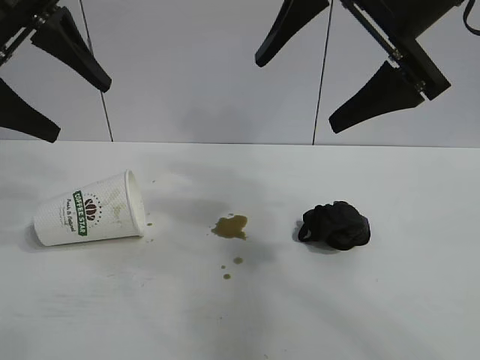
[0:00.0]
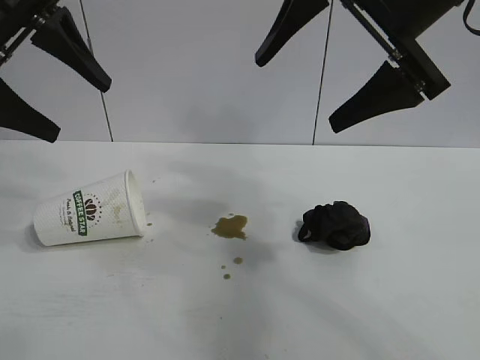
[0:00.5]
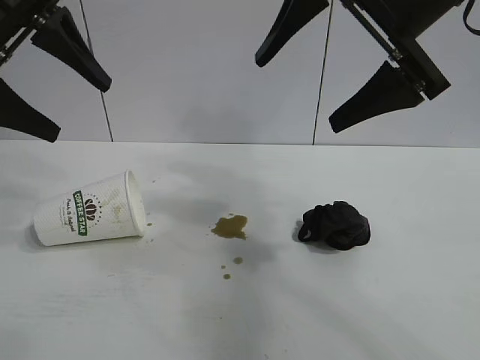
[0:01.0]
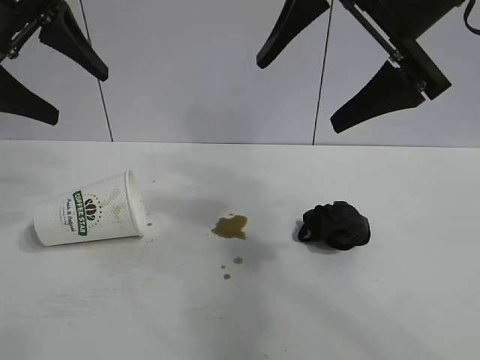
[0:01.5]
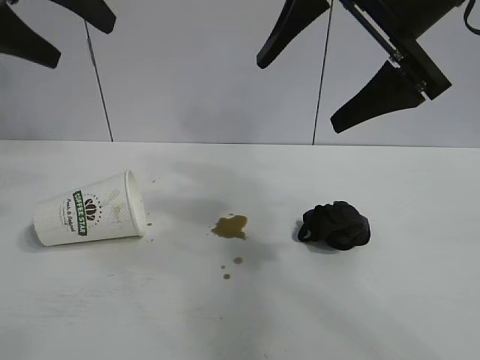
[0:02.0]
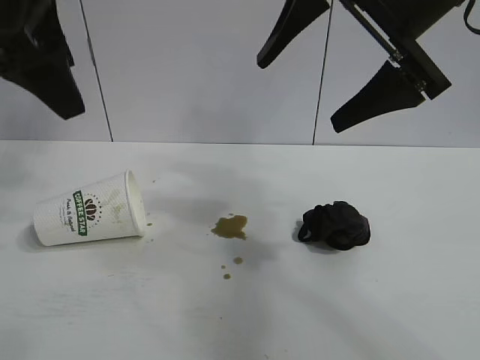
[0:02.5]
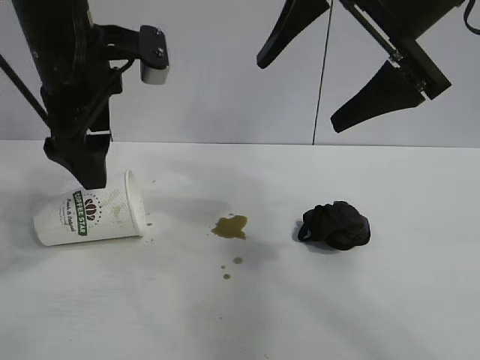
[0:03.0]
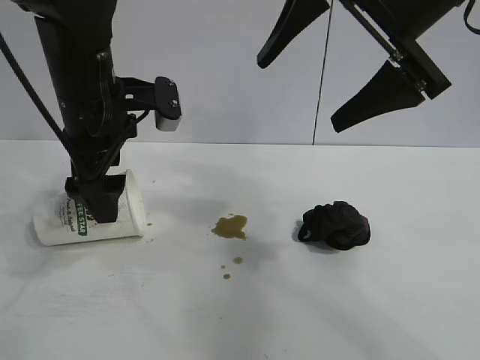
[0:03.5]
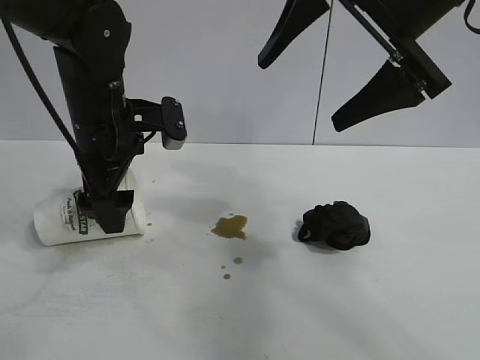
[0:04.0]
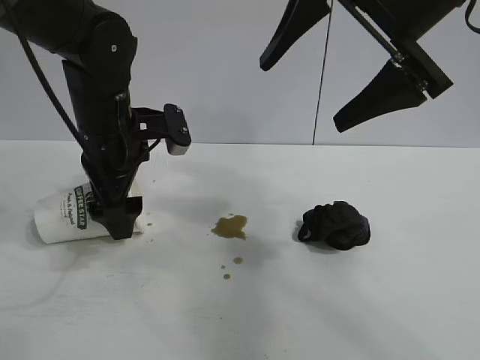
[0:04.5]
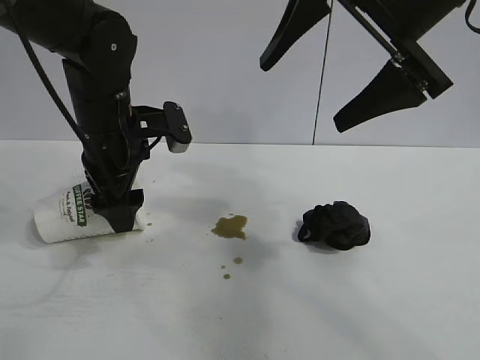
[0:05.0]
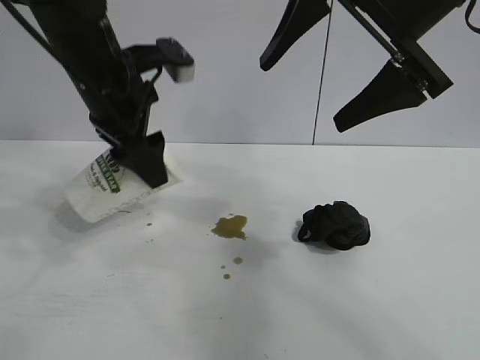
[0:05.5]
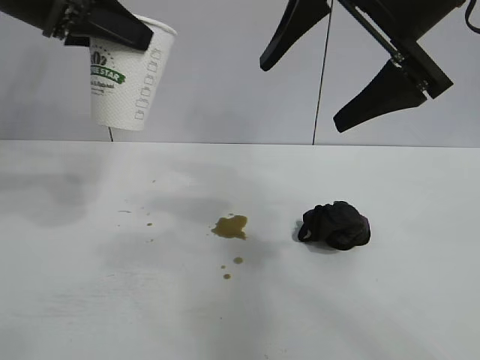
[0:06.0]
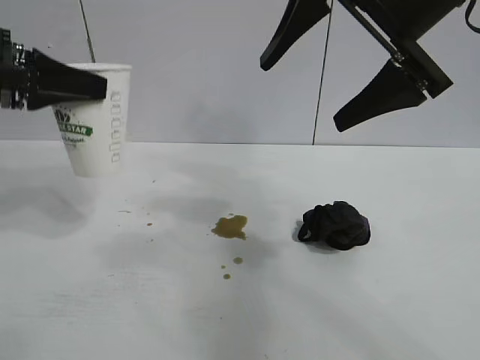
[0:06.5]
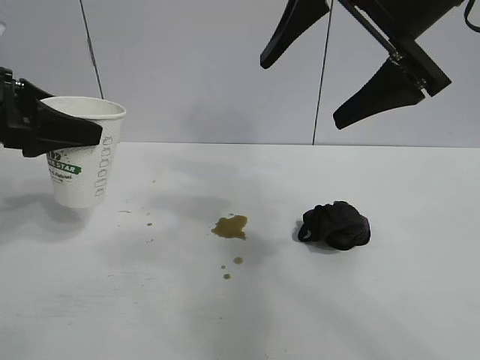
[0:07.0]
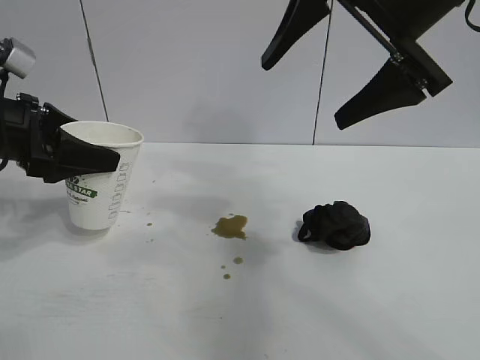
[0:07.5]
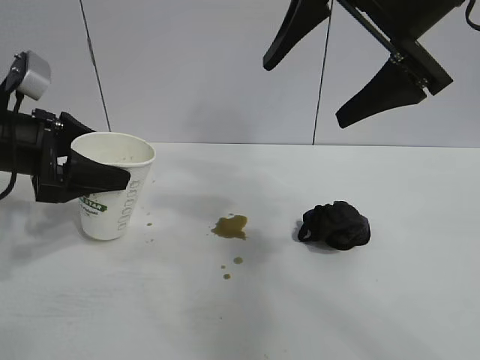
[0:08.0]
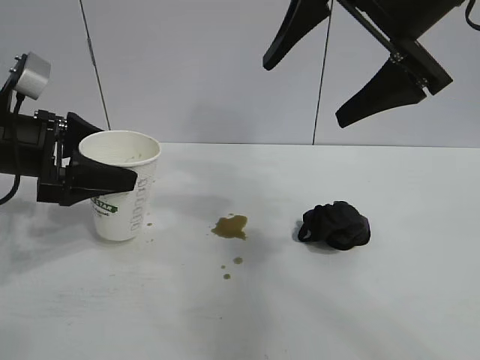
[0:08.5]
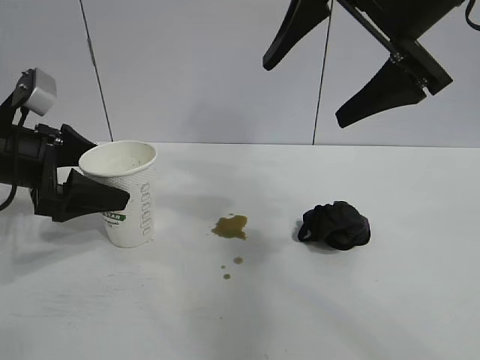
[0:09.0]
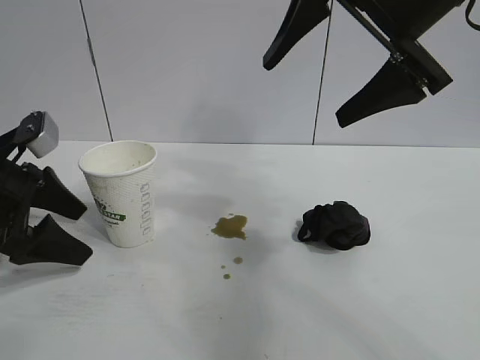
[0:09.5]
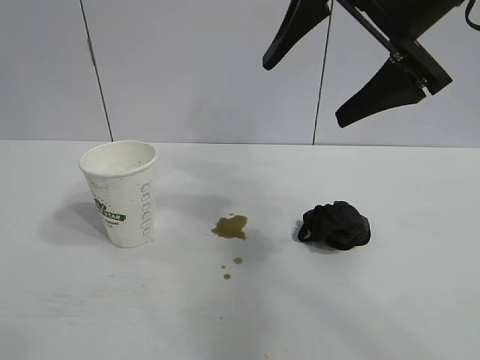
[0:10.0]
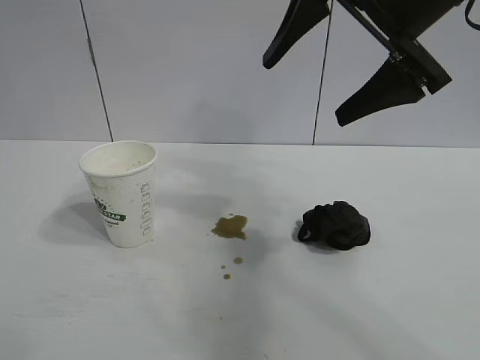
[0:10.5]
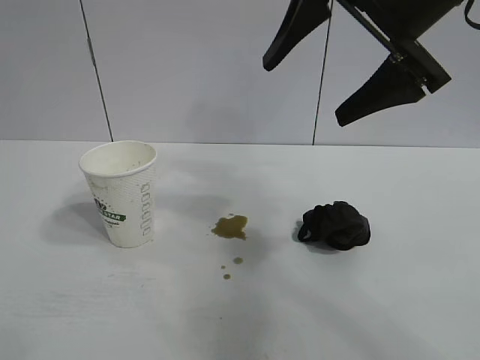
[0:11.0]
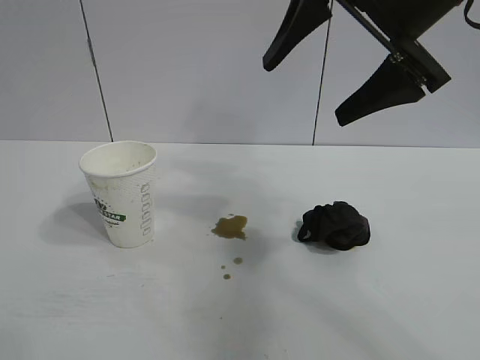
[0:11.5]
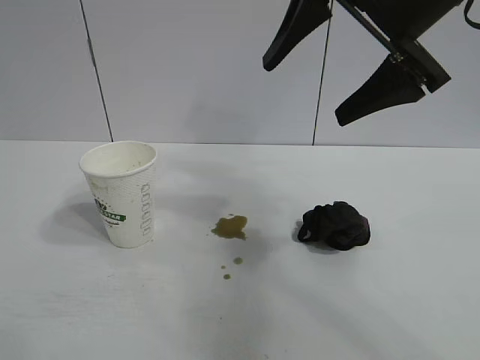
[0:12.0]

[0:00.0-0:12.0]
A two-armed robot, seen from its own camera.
Task of the whole recording: the left gripper pick up the fallen cup and place it upright, the right gripper grasp the black rag and wipe the stain on the table, the right gripper put the black rag back in its original position.
Step, 0:01.5 to 0:05.0: Grasp the paper cup with left gripper.
Step, 0:05.5 to 0:08.5: Stand the paper cup upright with left gripper.

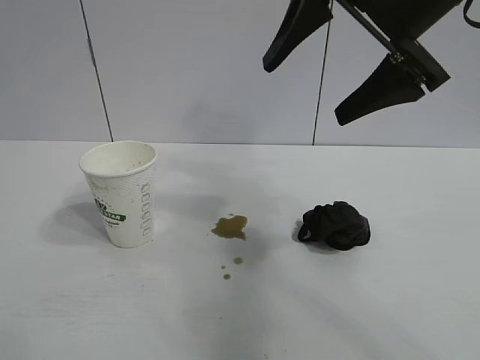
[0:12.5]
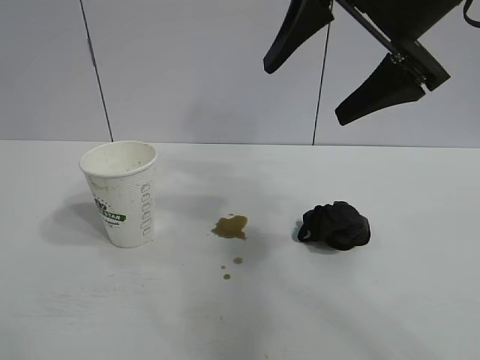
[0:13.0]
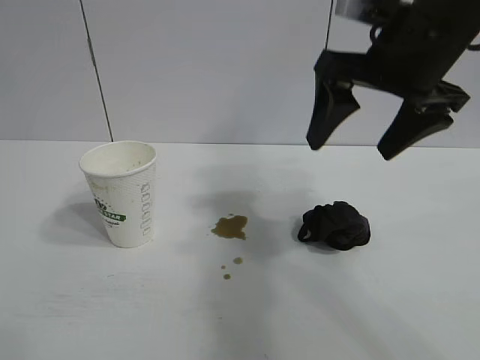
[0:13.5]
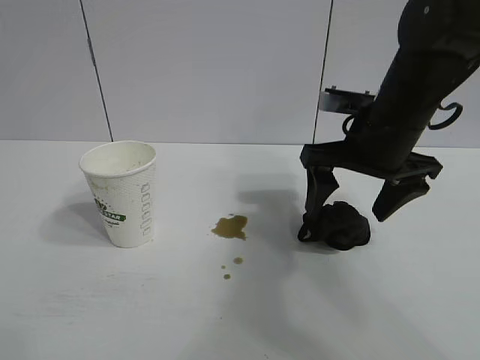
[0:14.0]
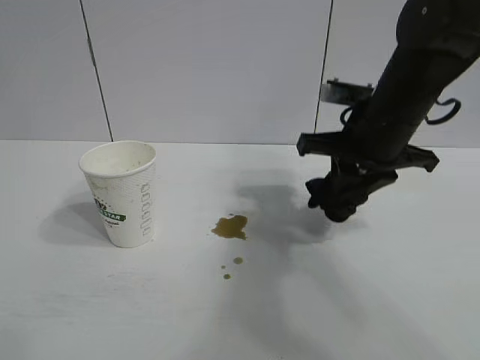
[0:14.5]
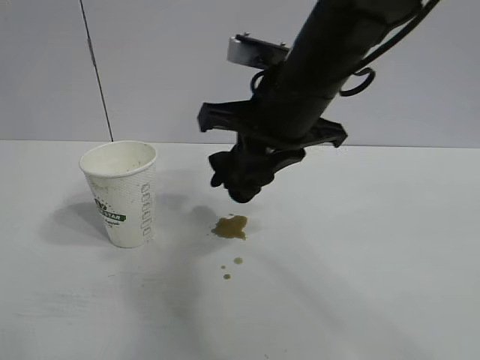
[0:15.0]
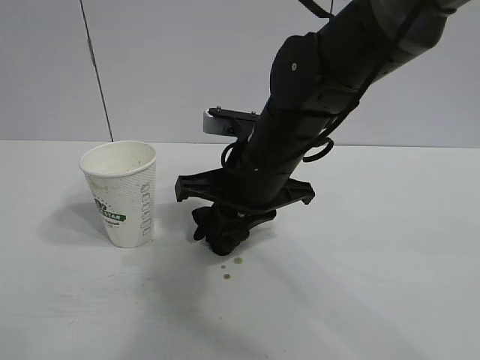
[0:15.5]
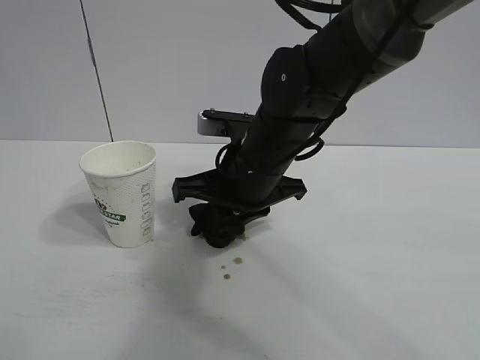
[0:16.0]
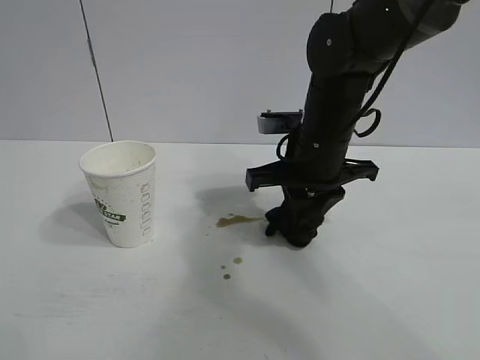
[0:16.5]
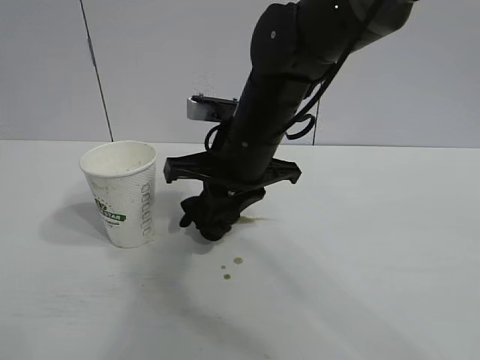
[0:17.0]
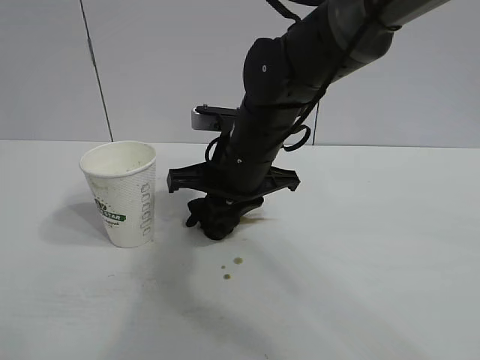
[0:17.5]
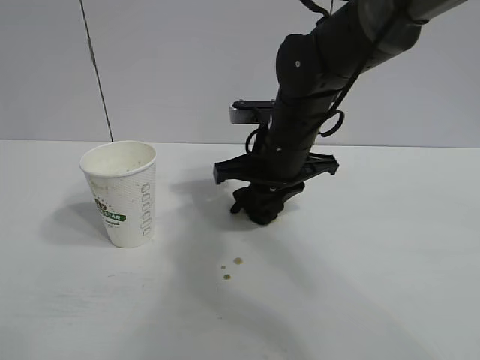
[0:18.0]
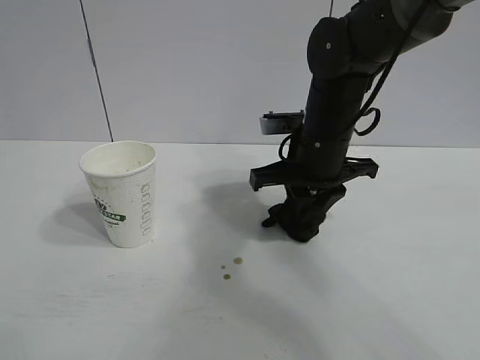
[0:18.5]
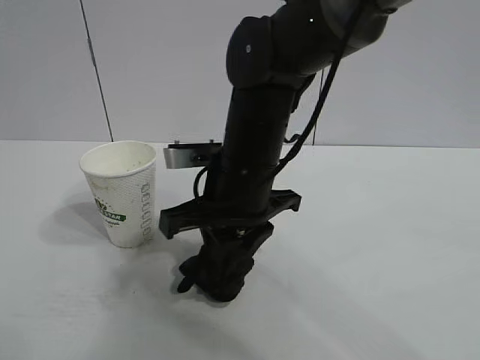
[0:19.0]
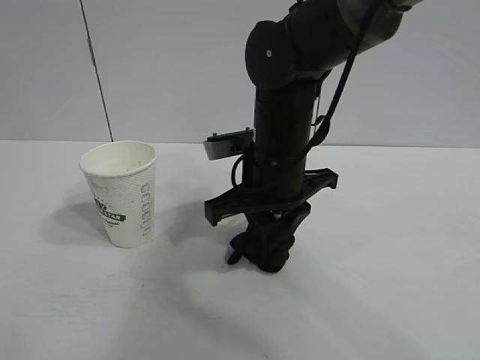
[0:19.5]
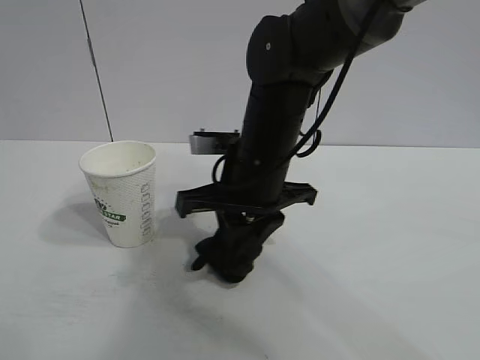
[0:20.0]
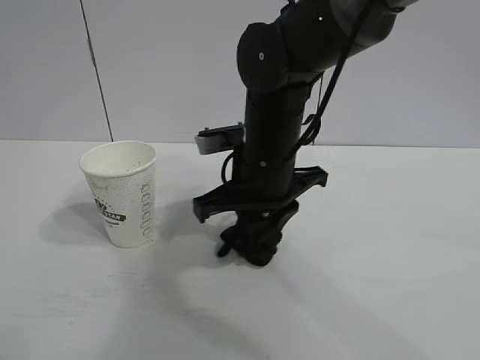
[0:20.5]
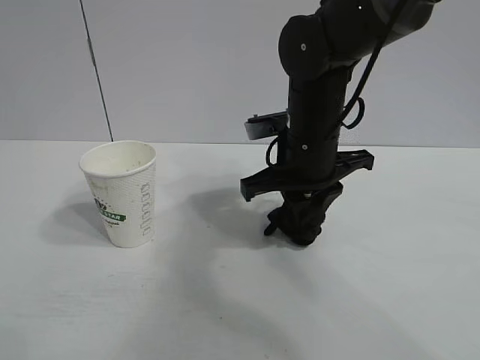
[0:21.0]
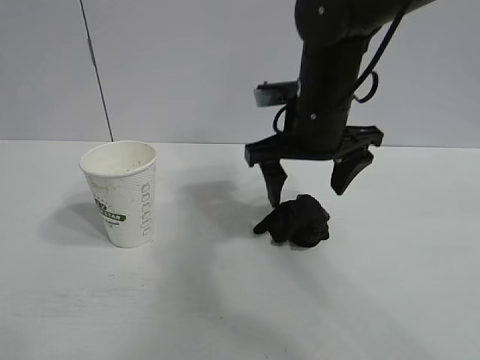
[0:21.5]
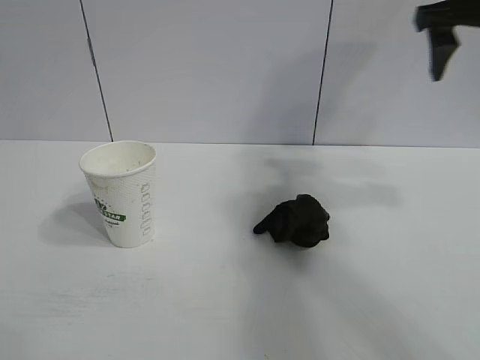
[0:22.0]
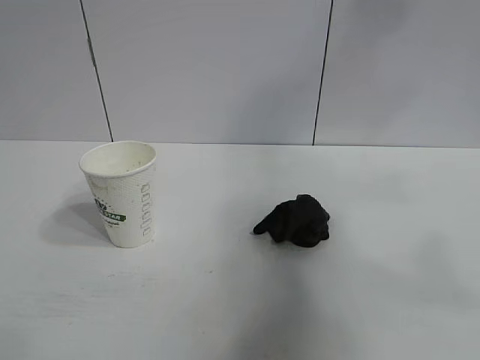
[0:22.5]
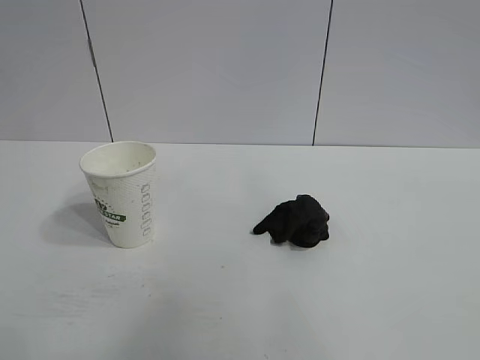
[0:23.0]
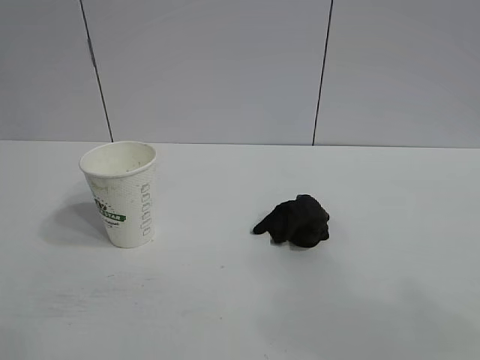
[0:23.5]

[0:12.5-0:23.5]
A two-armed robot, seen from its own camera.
Task of the whole recording: the left gripper pick up the fallen cup and place it upright, the right gripper grasp the black rag and wipe the stain on the table, the right gripper put the black rag back in its original position.
Step, 0:14.5 to 0:20.0: Wipe the stains off the table with the rag with right gripper.
Step, 0:20.5 to 0:21.0: Place the rag on the table with right gripper.

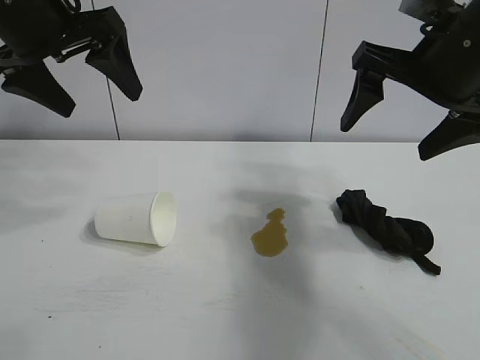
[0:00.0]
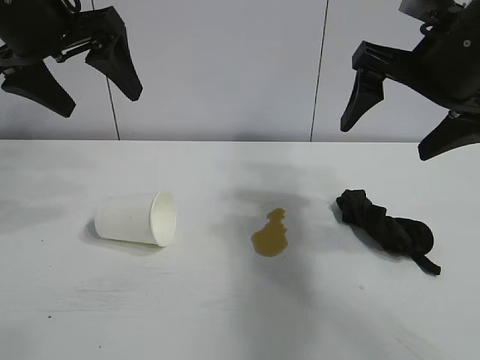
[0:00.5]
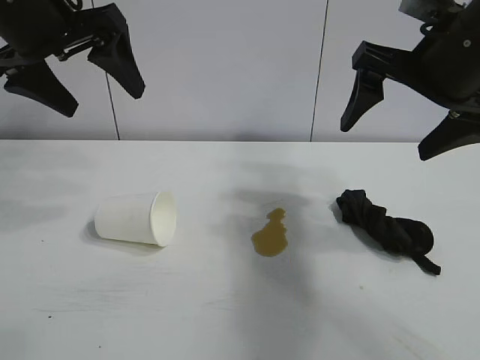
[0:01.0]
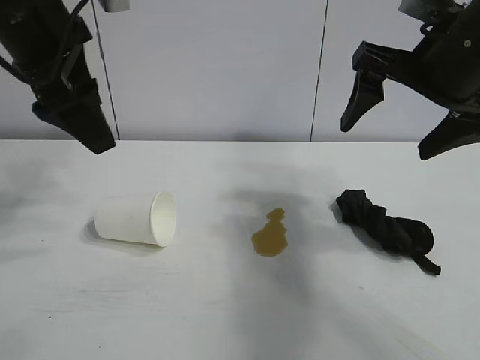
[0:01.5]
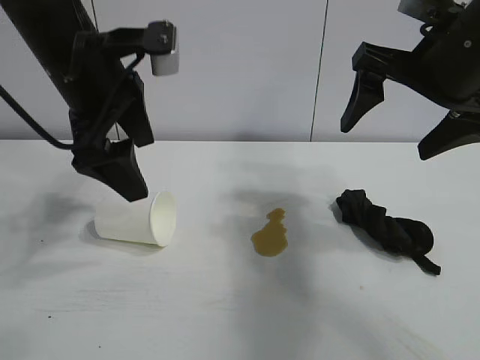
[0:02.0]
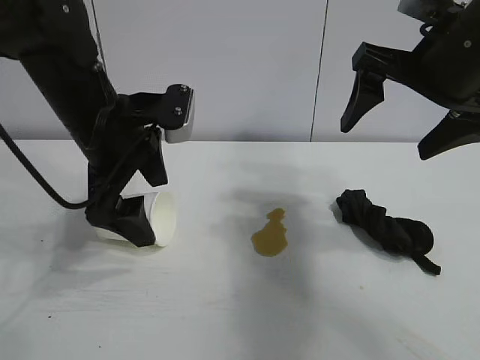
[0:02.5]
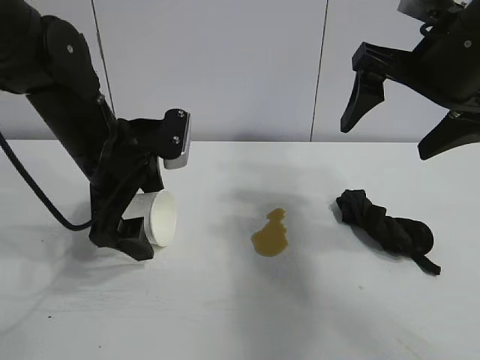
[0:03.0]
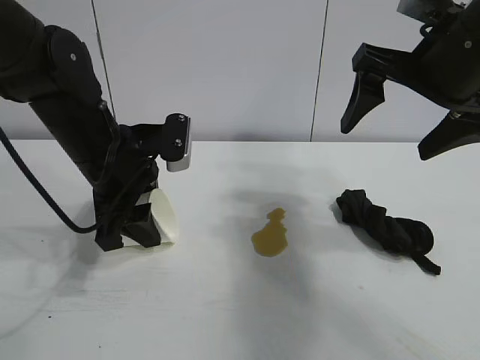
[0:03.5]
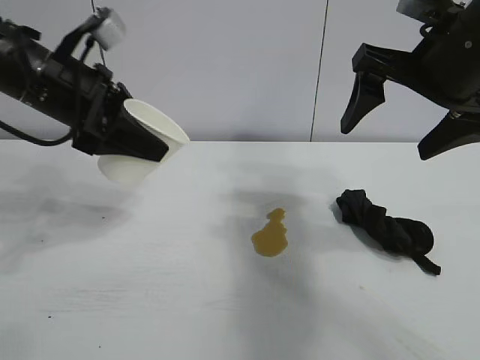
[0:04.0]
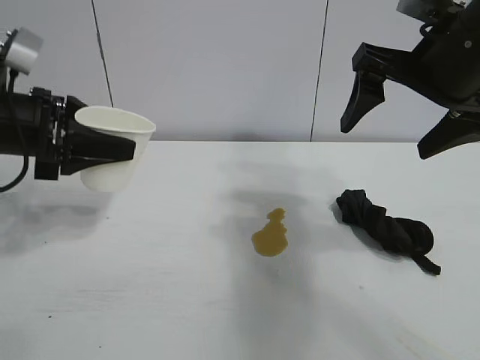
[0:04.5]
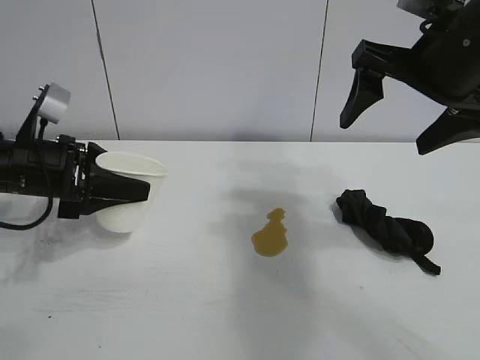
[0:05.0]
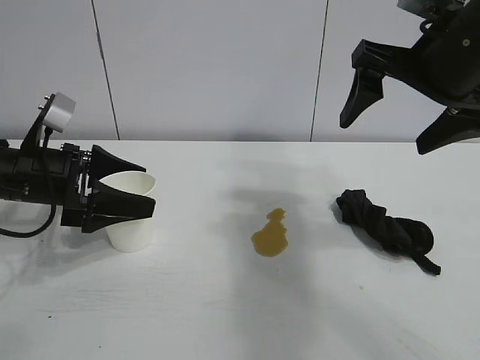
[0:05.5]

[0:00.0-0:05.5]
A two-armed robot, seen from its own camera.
Task of the whole recording: the left gripper pick up the fallen cup and place it upright, the right gripper grasp the black rag and wipe the stain on the table, the right gripper put the black rag back in its original position.
Step, 0:01.5 to 0:03.0: Grasp the paper cup with left gripper.
Step, 0:03.5 to 0:05.0: Stand the paper cup upright with left gripper.
